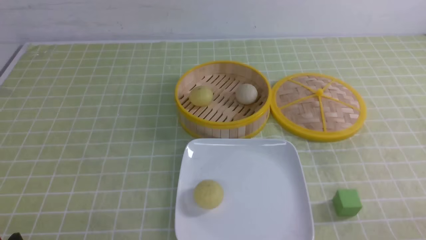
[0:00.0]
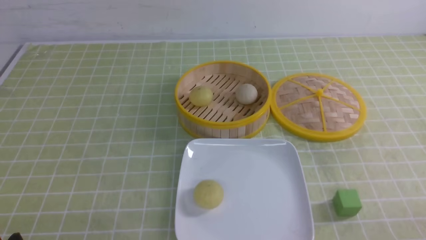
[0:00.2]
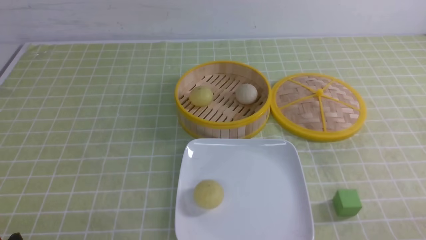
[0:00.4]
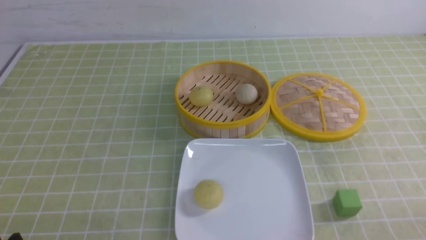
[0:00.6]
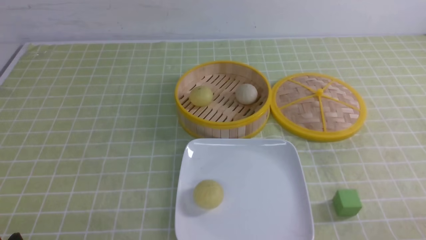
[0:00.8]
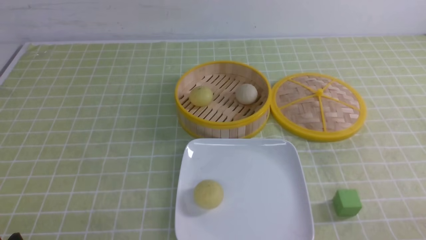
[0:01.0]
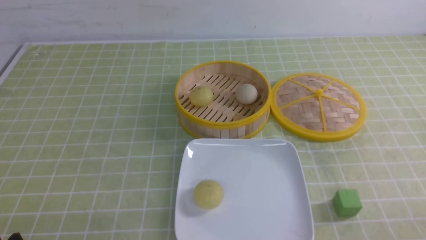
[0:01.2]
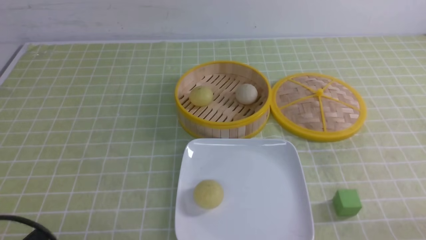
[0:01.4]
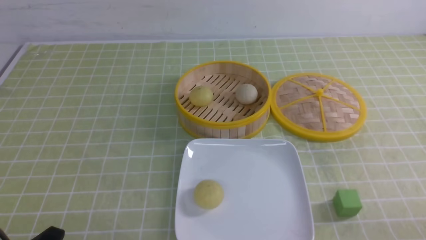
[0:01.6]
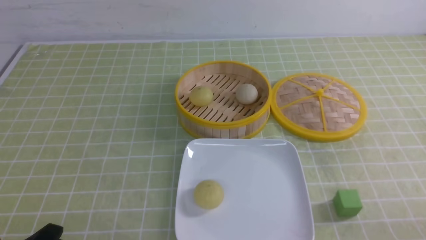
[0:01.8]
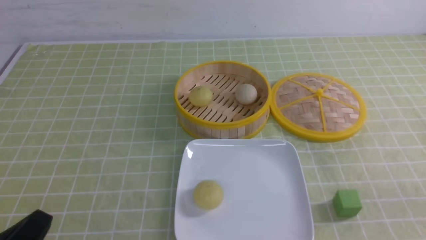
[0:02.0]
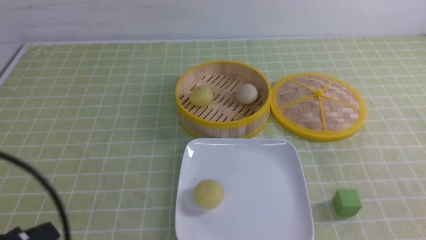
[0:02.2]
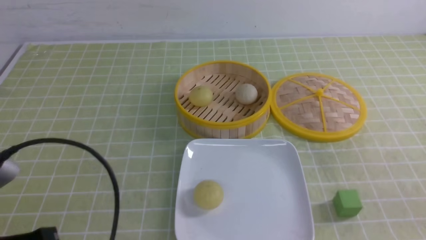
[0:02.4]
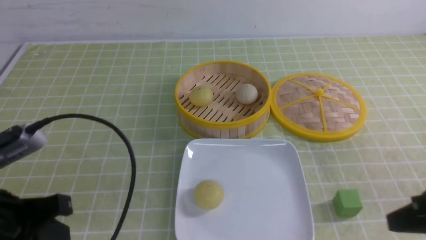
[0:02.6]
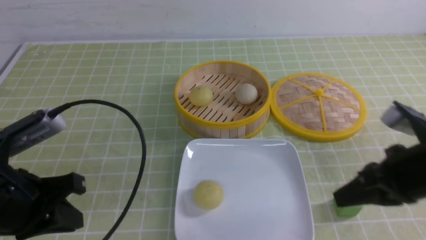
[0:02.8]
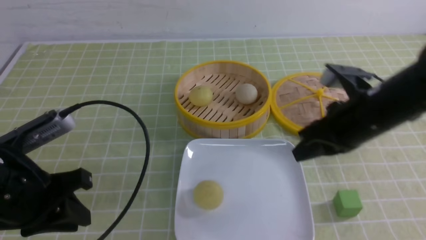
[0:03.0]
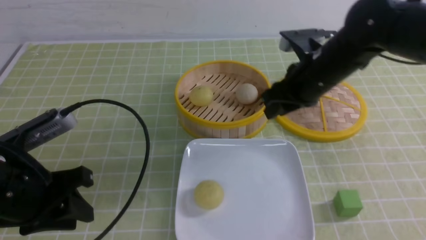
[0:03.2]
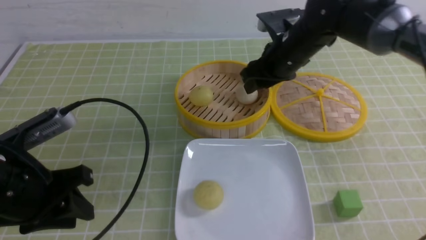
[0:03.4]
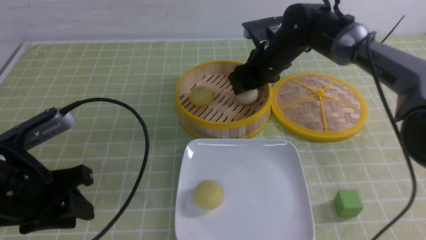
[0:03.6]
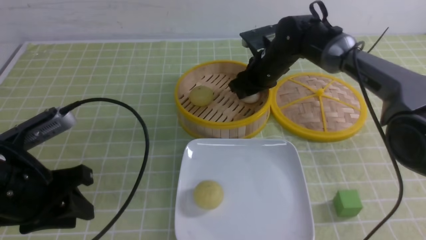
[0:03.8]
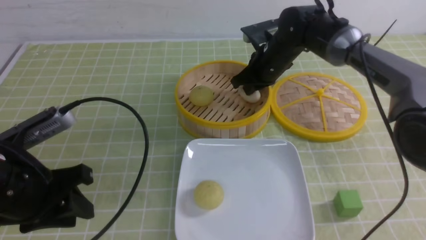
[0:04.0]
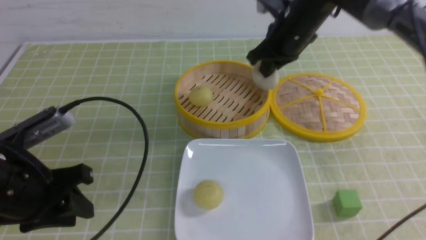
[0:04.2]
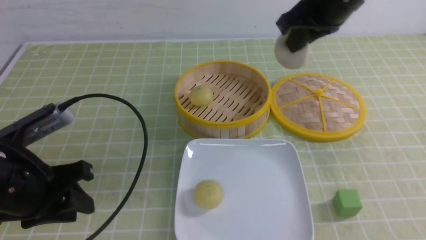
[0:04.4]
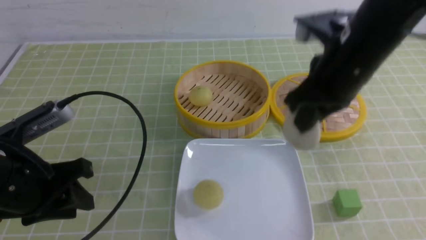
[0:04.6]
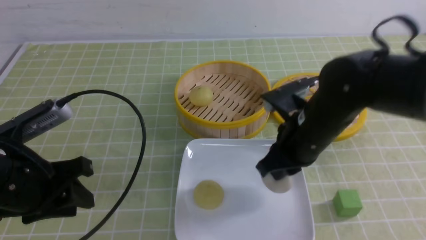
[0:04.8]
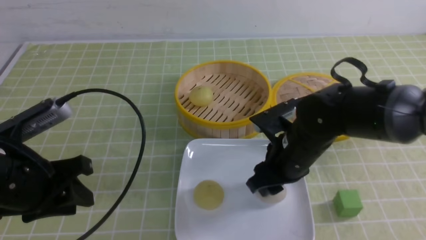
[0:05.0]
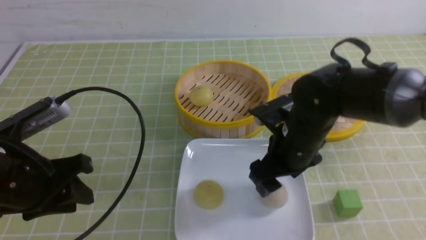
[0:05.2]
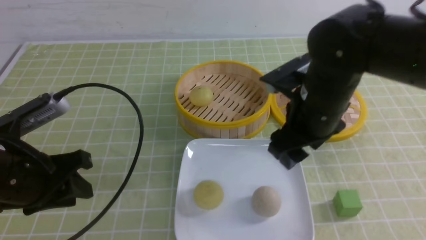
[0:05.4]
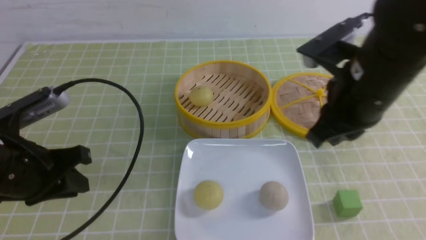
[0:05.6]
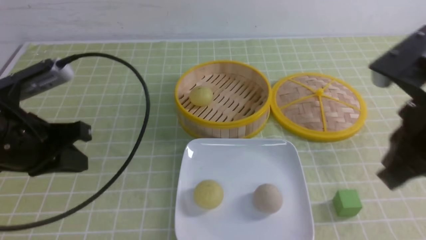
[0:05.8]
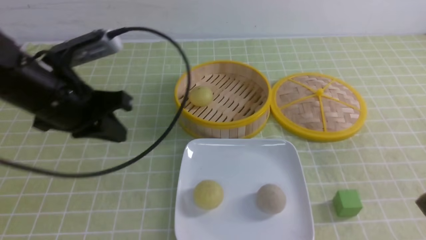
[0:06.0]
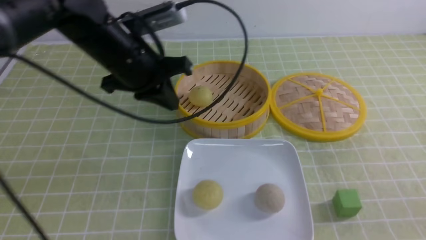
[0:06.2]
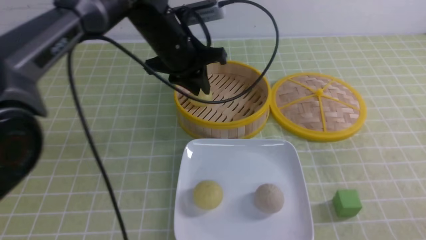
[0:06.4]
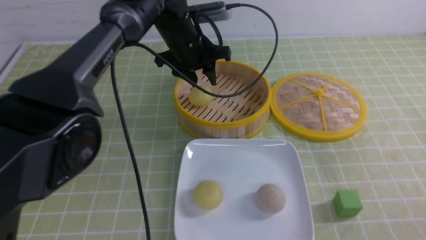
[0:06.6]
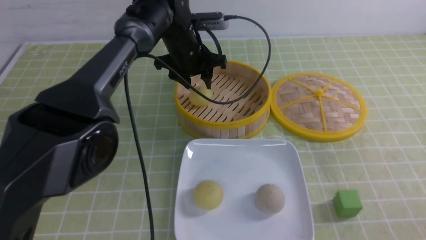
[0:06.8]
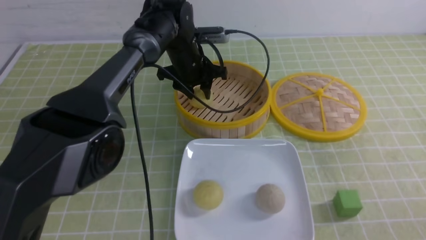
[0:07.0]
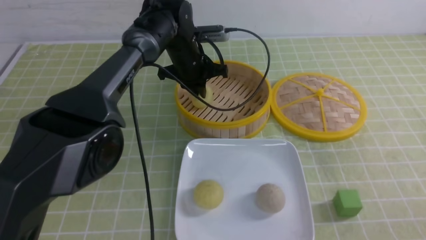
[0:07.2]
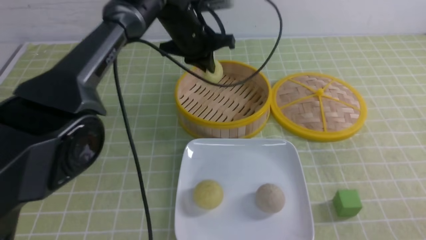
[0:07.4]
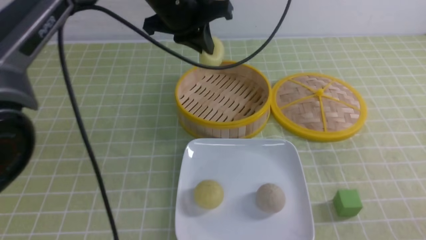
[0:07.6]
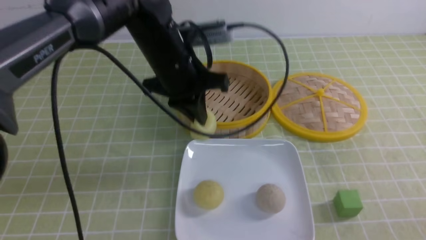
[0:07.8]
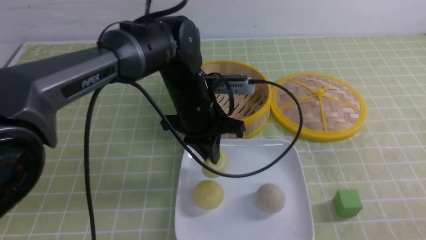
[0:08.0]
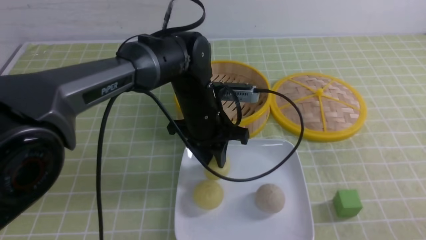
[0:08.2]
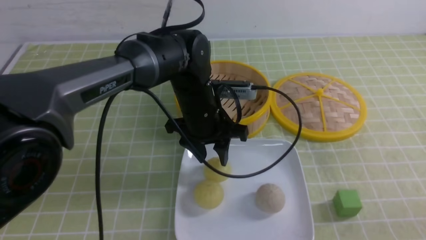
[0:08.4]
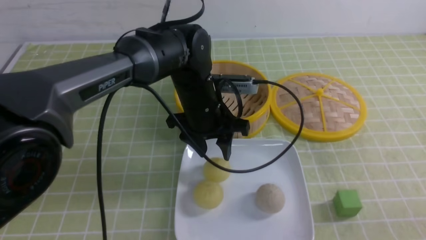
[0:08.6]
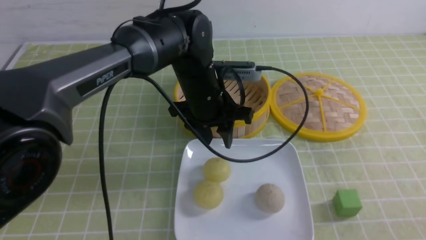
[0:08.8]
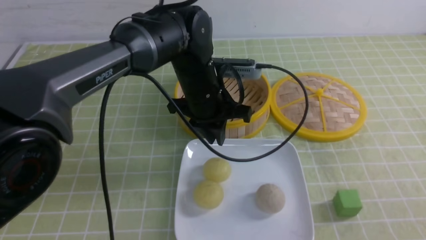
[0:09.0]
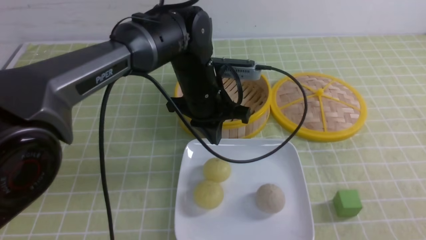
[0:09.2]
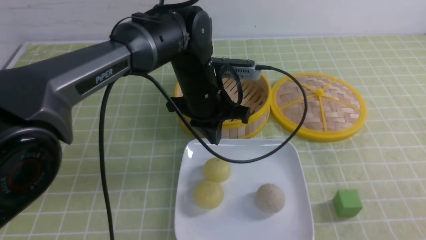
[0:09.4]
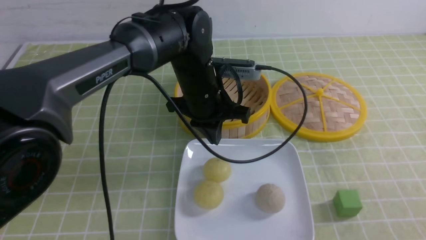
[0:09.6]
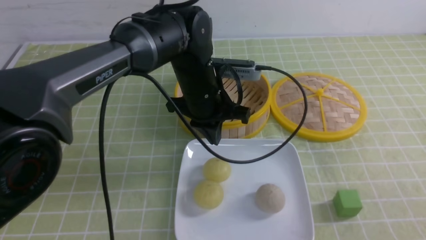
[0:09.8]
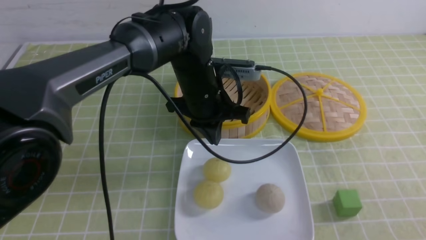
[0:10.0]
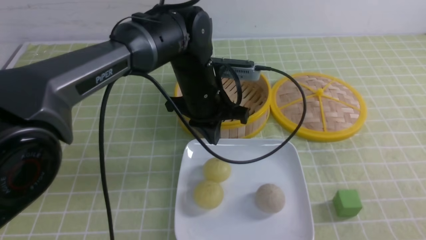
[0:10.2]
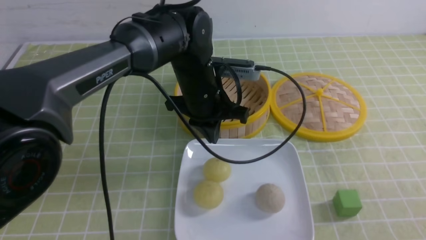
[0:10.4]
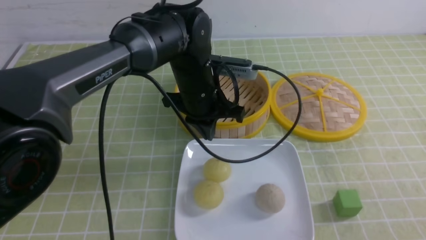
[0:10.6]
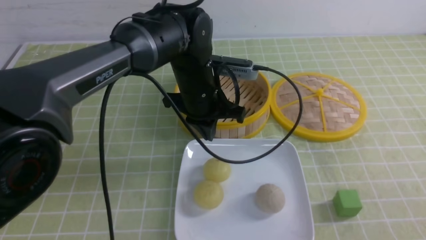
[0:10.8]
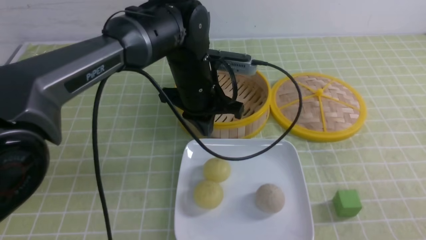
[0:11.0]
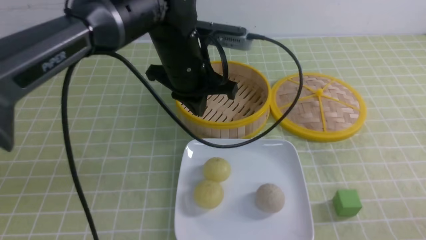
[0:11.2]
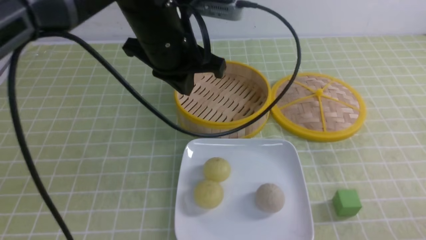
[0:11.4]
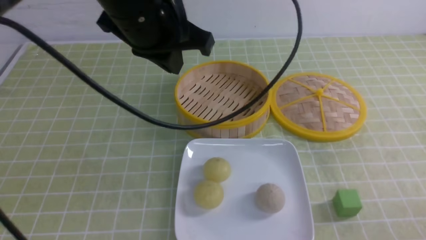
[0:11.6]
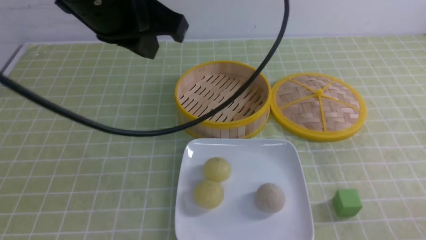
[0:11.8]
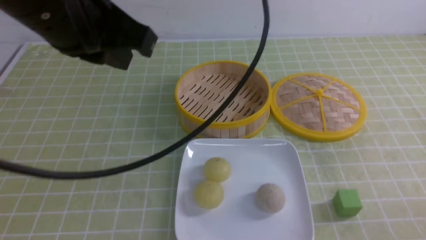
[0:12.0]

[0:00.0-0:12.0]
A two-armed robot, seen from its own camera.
Step, 0:00.0 to 0:03.8: use the right arm to grab the steamed stuffed bun that is closest to it.
Step, 0:04.0 to 0:05.2: use the right arm to put the steamed stuffed bun into the plate.
Step, 0:05.4 to 0:07.0: use the left arm to grab the steamed stuffed bun that is closest to it.
Step, 0:07.4 to 0:08.2: use the left arm to put the steamed stuffed bun into the plate.
0:01.6 to 0:03.0: The right gripper moves forward and to the left, roughly 25 cm. Meanwhile the left gripper is displaced forward and upward by some 15 cm, and closes and opens again.
0:03.0 to 0:04.4: The right gripper shifts about 10 cm upward and forward, and opens, then closes once more.
0:04.4 to 0:06.0: The right gripper heads backward and to the right, covering roughly 25 cm, and opens, then closes once more. Meanwhile the left gripper heads forward, upward and to the right, covering approximately 15 cm, and closes up.
0:06.0 to 0:07.6: The left gripper is displaced to the right and forward by approximately 15 cm, and opens and closes again. Meanwhile the right gripper goes some 10 cm downward and backward.
0:07.6 to 0:09.0: The left gripper heads downward, covering roughly 10 cm, and opens and closes again; the right gripper shifts about 5 cm backward.
0:09.0 to 0:10.4: The left gripper closes up.
0:10.4 to 0:12.0: The right gripper travels downward by approximately 10 cm. Meanwhile the left gripper is displaced upward, backward and to the left by about 25 cm.

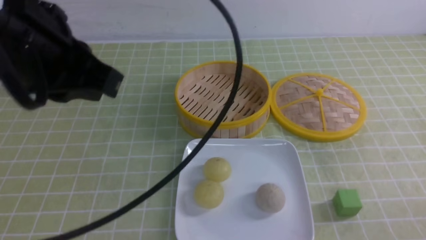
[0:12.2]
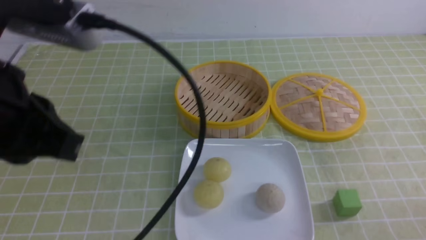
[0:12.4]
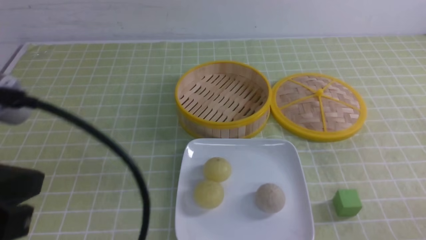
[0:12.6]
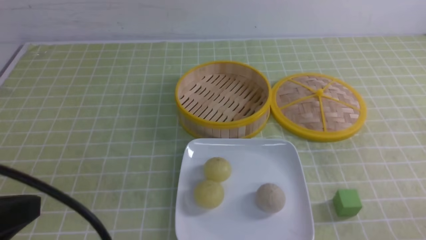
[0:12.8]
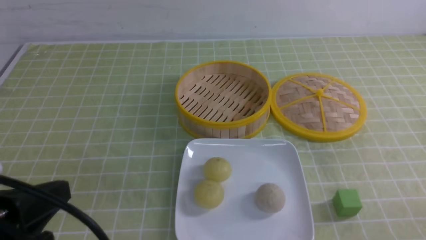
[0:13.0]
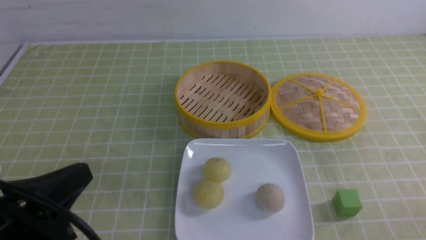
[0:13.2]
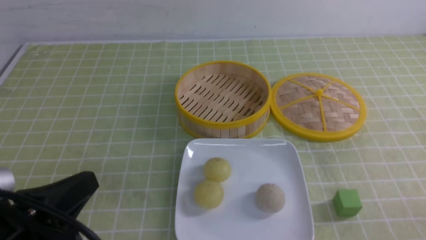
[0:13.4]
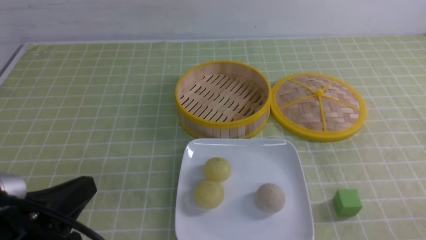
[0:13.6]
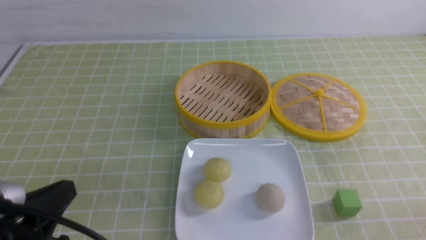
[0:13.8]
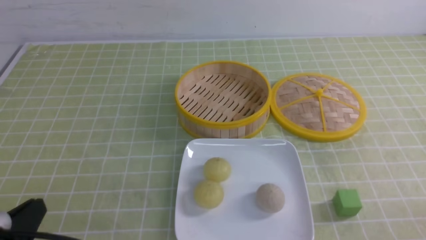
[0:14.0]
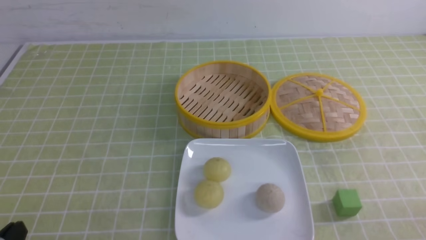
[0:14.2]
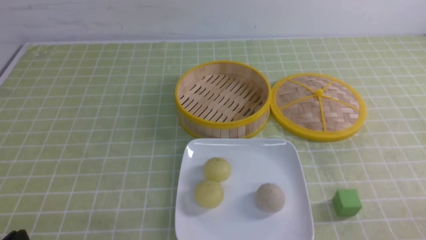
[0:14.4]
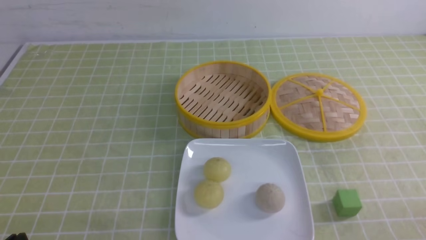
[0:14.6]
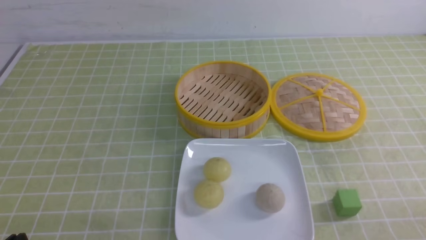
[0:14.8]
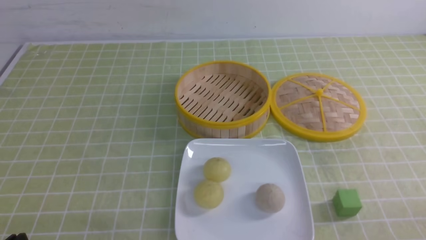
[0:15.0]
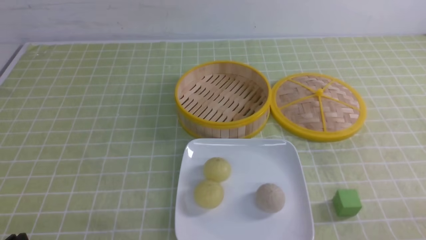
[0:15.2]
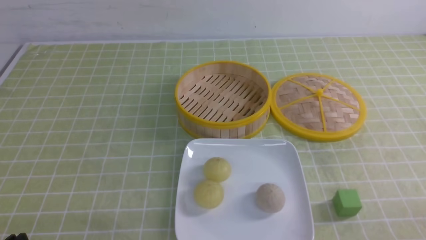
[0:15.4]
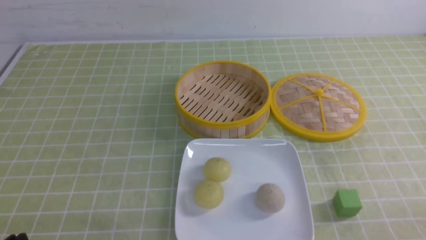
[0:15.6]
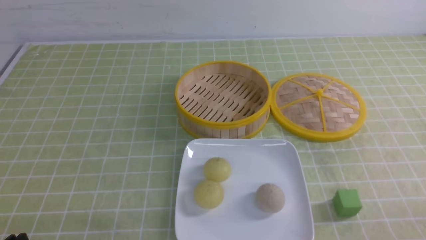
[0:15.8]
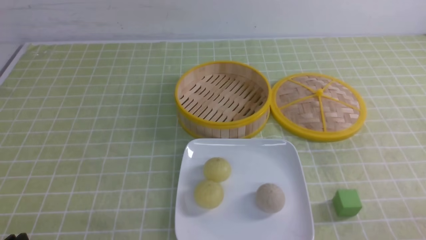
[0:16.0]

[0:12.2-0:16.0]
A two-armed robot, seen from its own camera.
0:12.2 to 0:13.4: The left gripper is displaced downward and backward by roughly 20 cm.
0:13.4 to 0:14.8: The left gripper goes about 10 cm downward and to the left.
0:14.8 to 0:16.0: Both grippers stay put.
